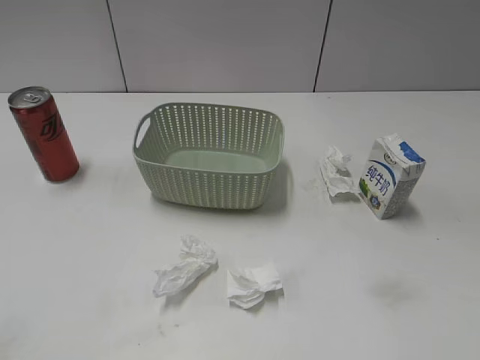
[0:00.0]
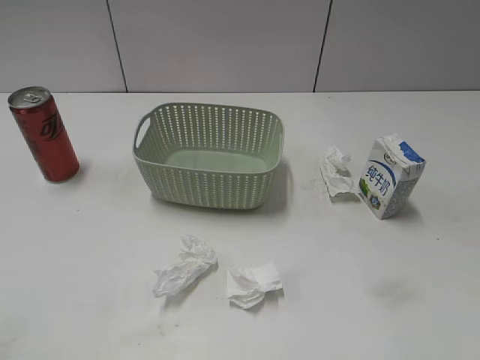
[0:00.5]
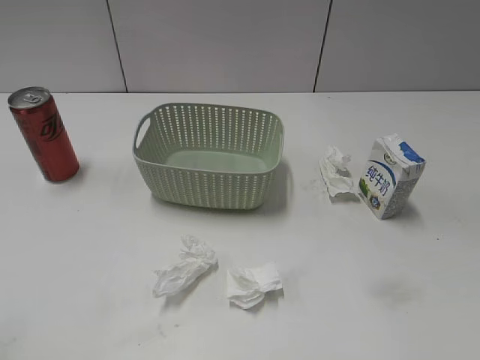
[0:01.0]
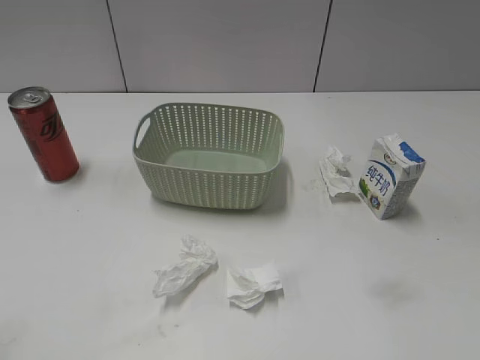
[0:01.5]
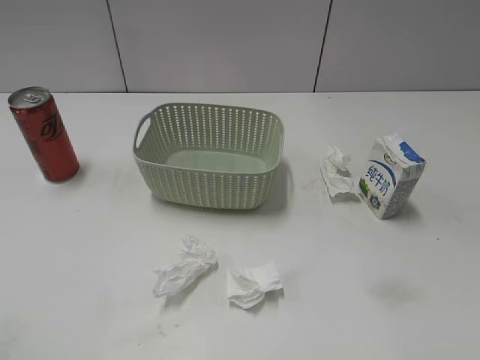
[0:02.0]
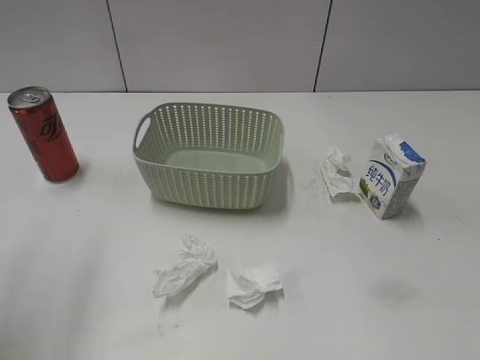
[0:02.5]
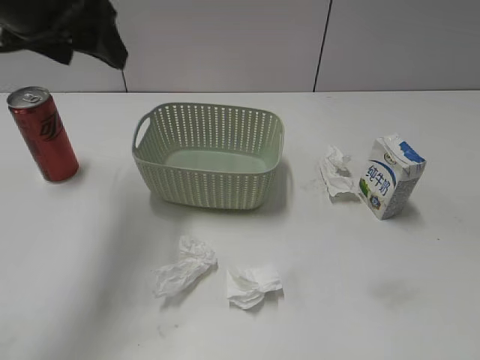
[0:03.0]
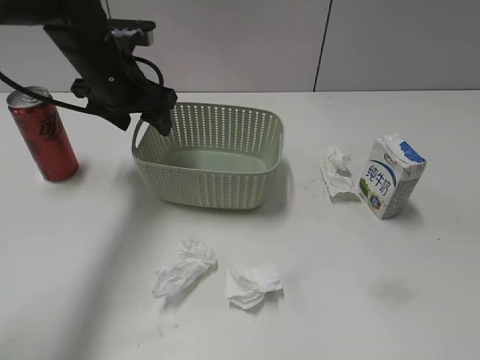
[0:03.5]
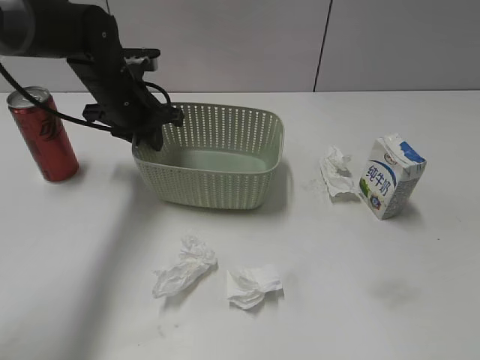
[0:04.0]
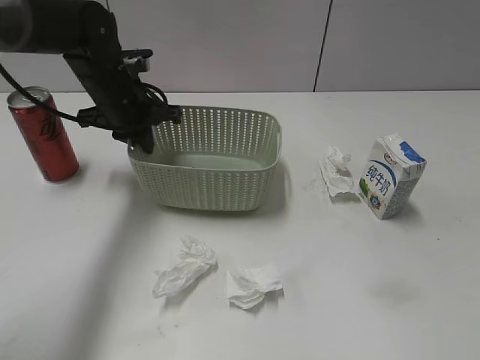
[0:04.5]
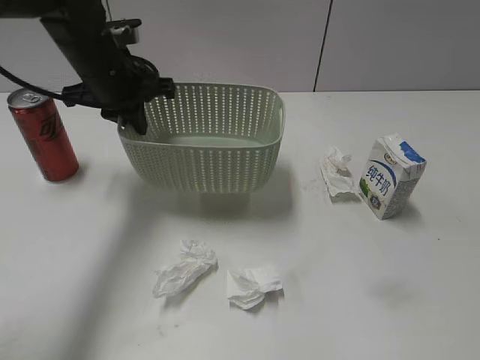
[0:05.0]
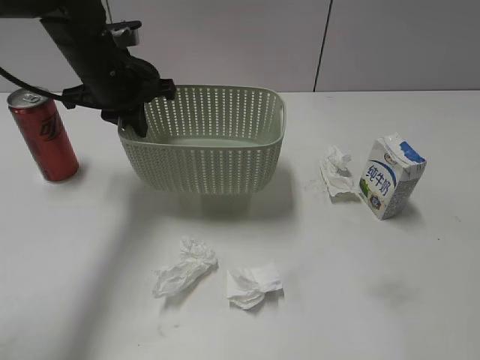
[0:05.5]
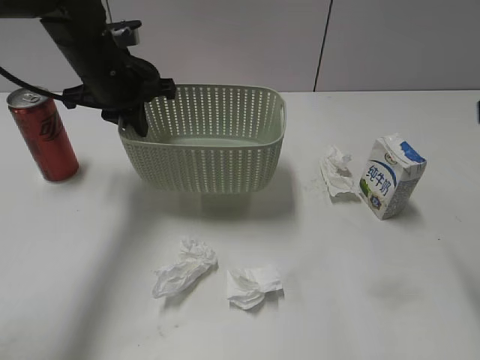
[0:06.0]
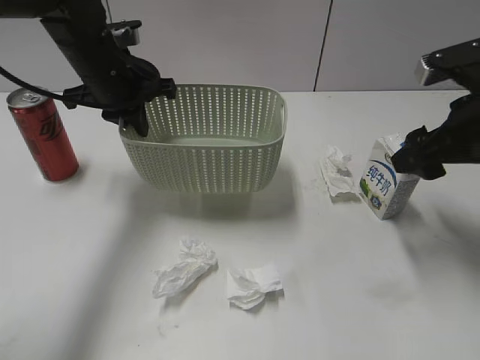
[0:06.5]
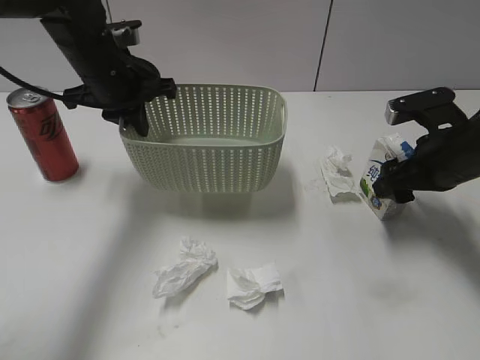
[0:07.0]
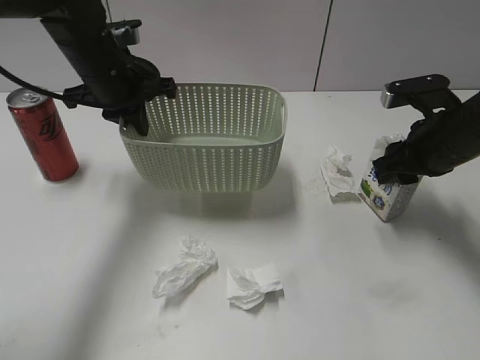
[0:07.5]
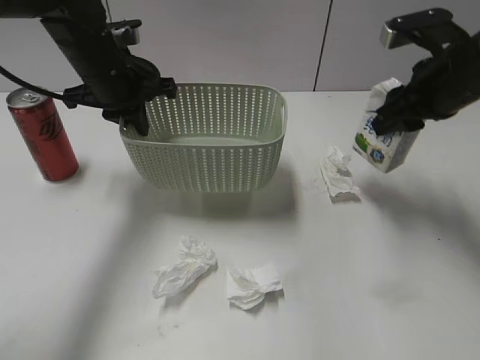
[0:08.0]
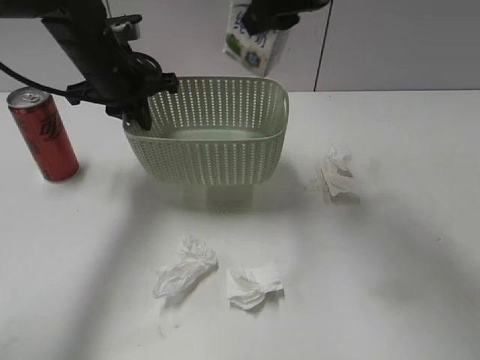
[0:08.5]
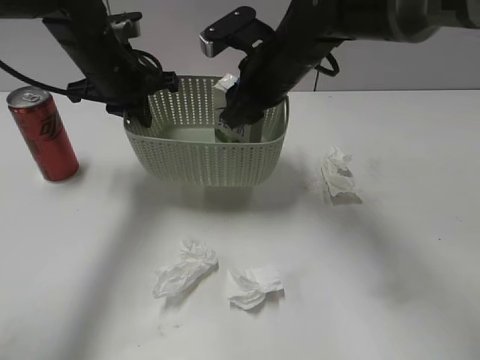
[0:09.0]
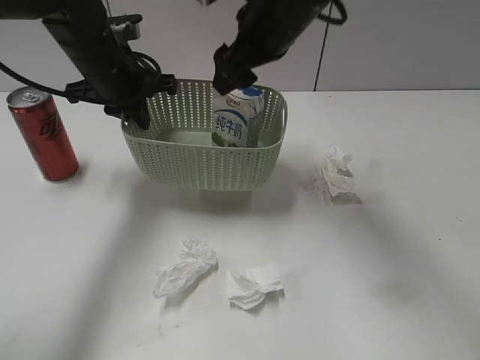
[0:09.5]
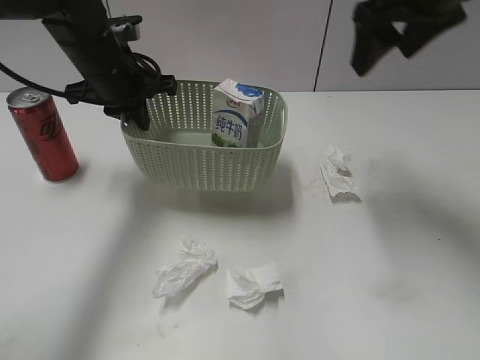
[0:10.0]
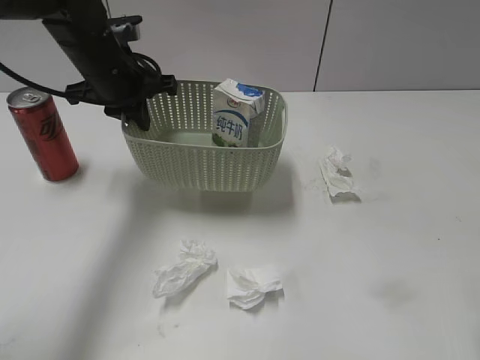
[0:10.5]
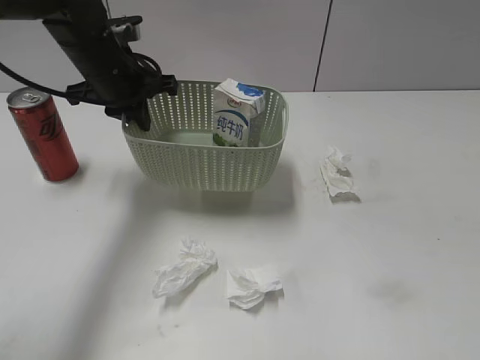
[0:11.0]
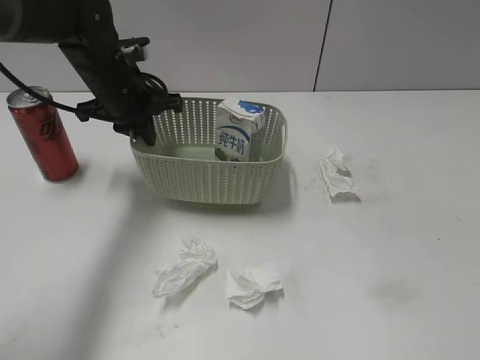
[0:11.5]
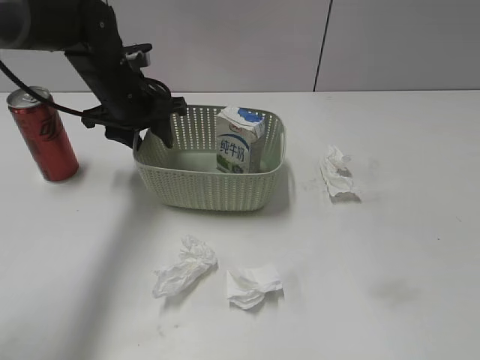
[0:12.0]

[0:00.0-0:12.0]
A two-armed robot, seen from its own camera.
Step, 0:03.0 to 0:04.0: Grasp the basket with left gripper.
Step, 0:04.5 to 0:05.0: Lift the basket with left gripper.
Step, 0:05.5 to 0:07.0: Grasp the milk with right gripper.
Step, 0:07.5 to 0:09.5: Place the milk in the basket with right gripper.
0:02.0 to 0:04.0: The left gripper is displaced forward and downward by some 40 cm, and closes up.
0:04.0 to 0:06.0: The right gripper travels forward by some 20 cm, while the left gripper shifts about 5 cm upward.
0:06.0 to 0:08.0: The right gripper shifts approximately 15 cm forward and downward, and closes.
0:08.0 to 0:10.0: The right gripper is displaced upward by approximately 10 cm, moves some 20 cm to the left and comes back, and opens.
0:10.0 to 0:12.0: The right gripper moves backward, roughly 35 cm. The left gripper opens its fingers.

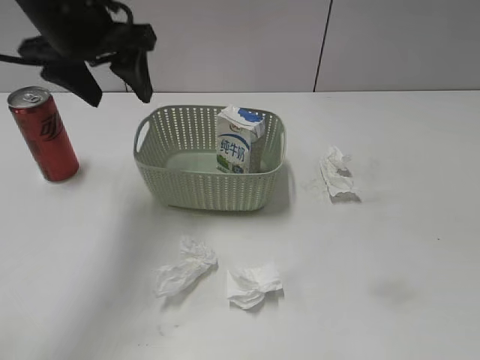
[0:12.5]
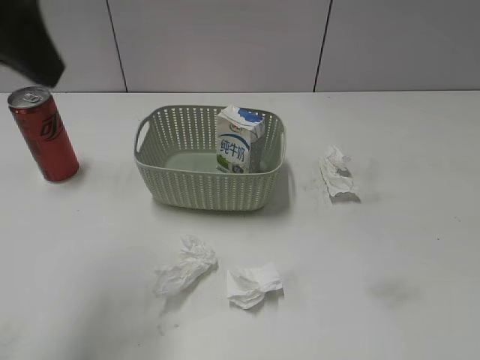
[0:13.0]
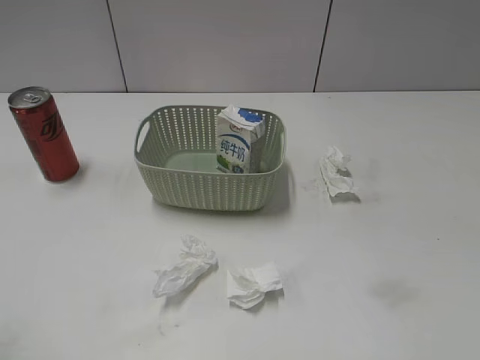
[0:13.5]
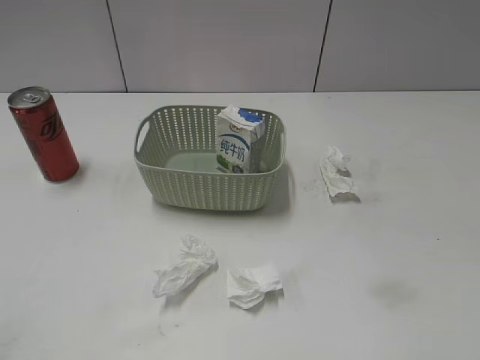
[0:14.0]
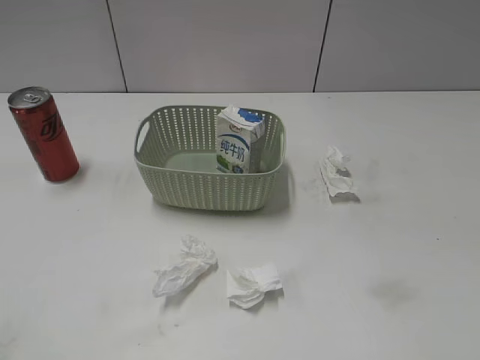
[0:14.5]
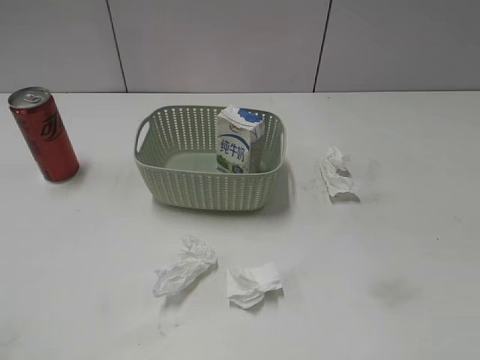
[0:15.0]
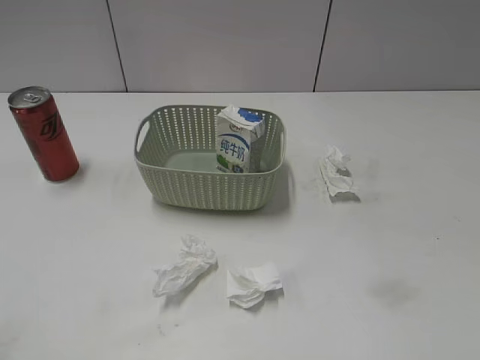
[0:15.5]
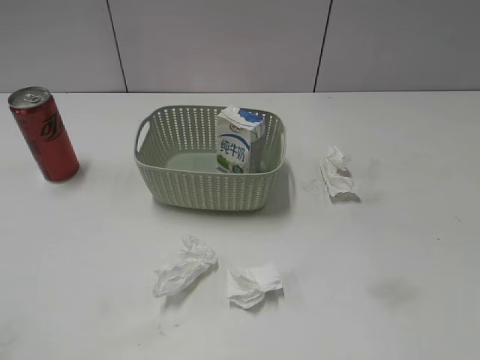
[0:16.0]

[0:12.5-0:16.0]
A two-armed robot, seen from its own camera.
0:12.5 to 0:14.5: The left gripper moves backward and to the left, about 35 cm.

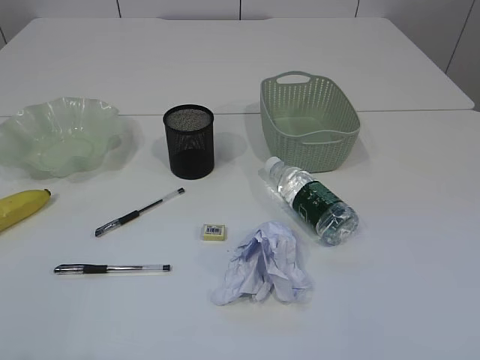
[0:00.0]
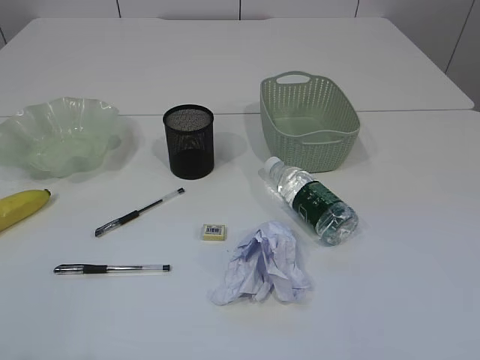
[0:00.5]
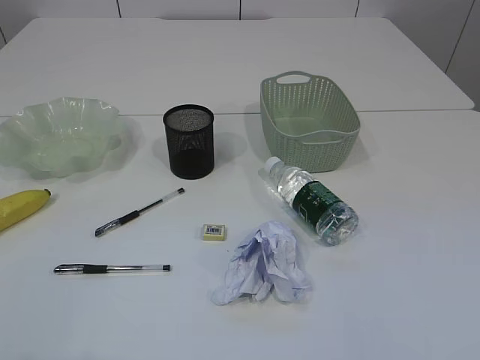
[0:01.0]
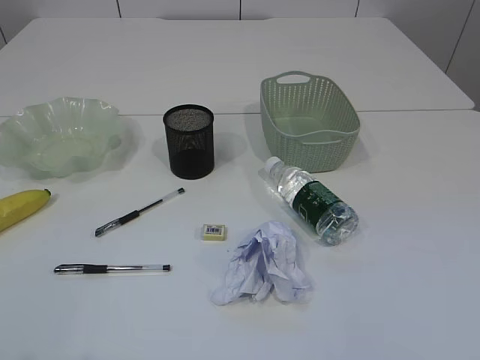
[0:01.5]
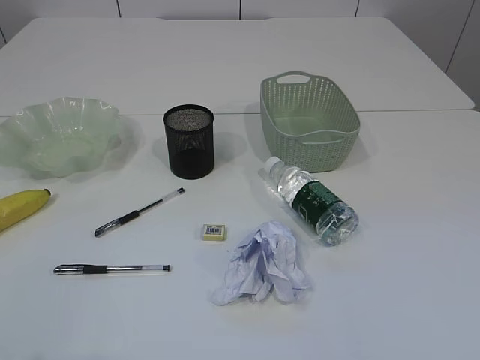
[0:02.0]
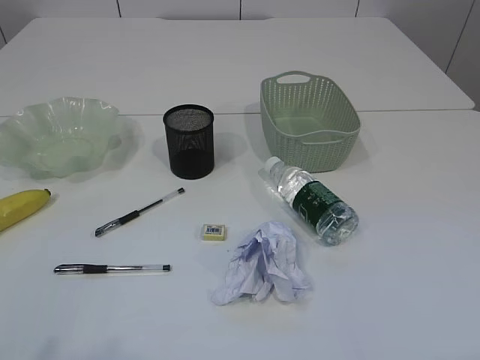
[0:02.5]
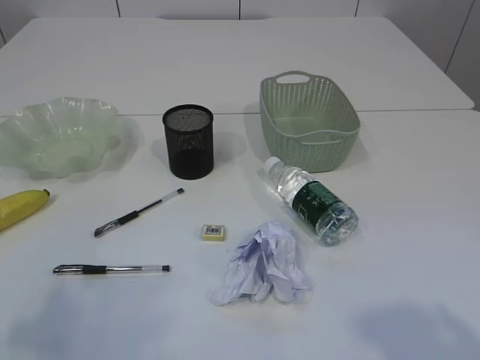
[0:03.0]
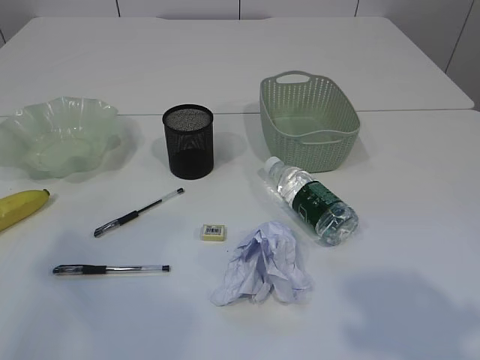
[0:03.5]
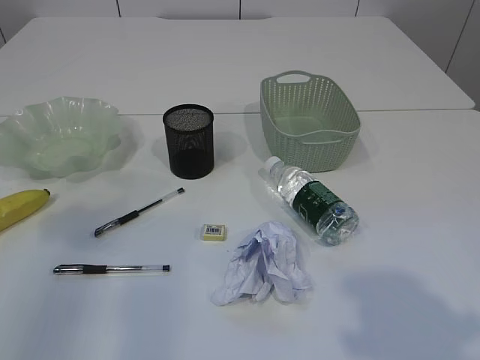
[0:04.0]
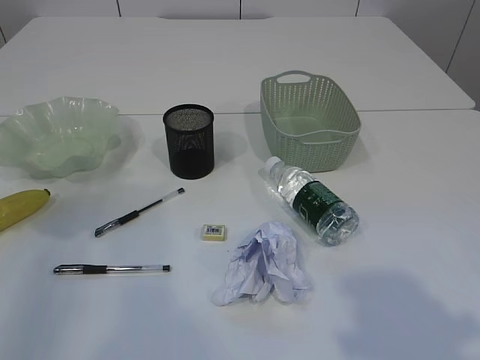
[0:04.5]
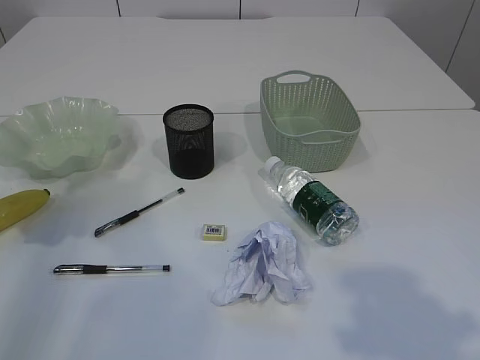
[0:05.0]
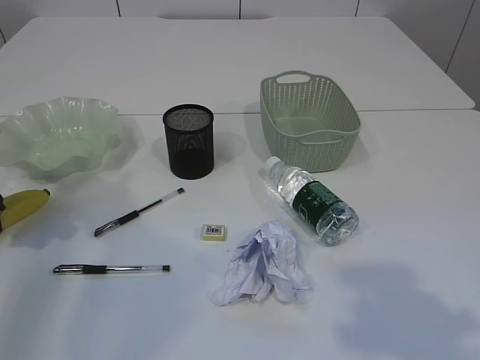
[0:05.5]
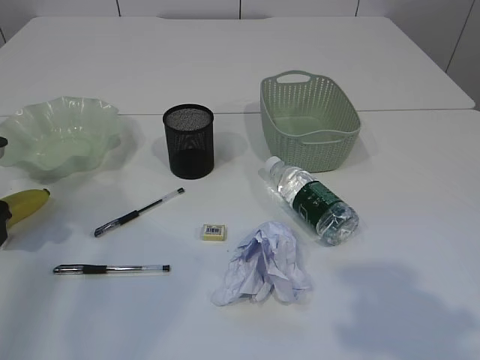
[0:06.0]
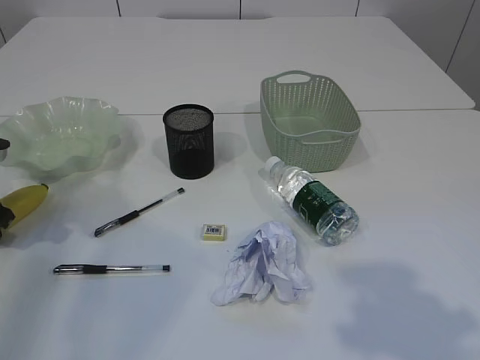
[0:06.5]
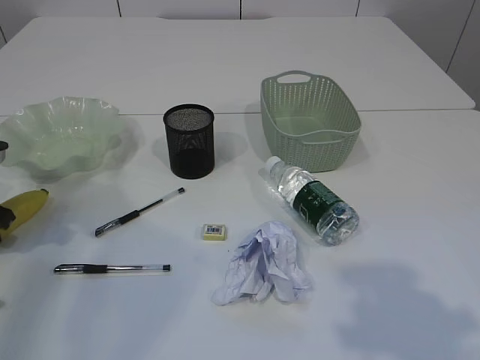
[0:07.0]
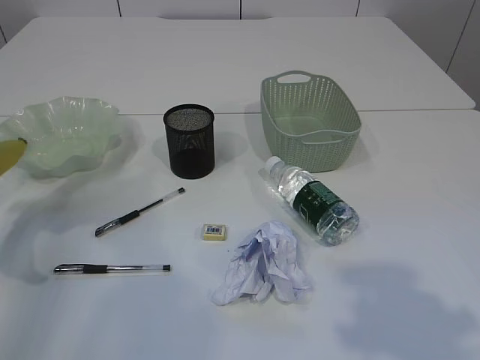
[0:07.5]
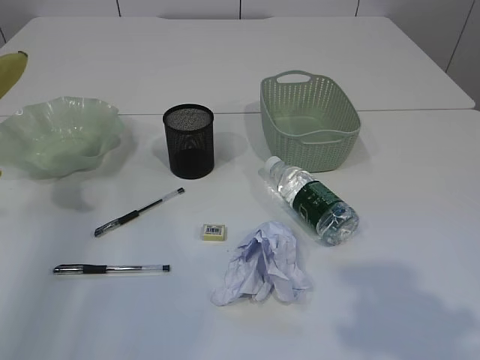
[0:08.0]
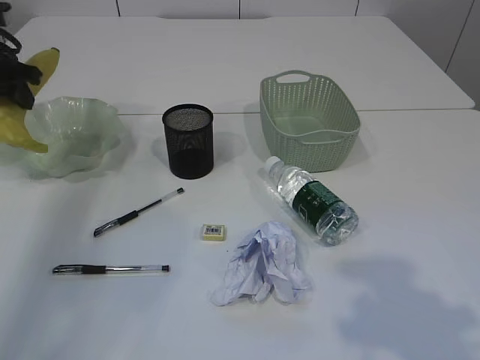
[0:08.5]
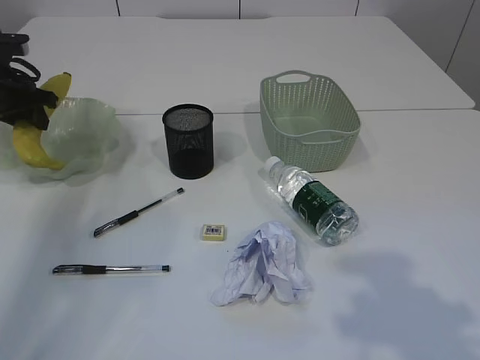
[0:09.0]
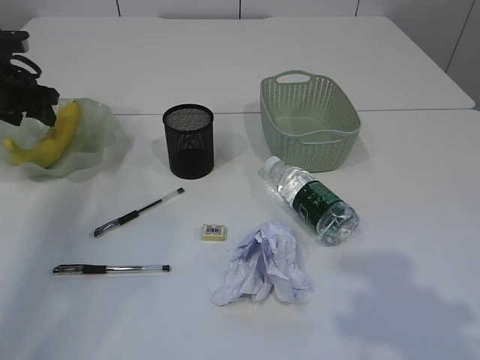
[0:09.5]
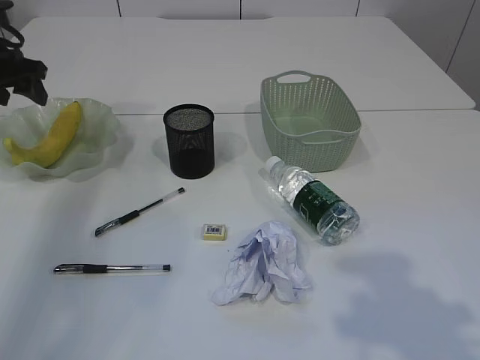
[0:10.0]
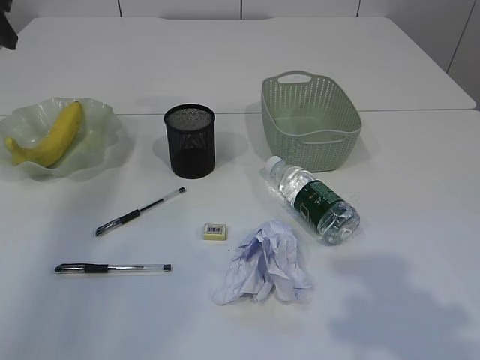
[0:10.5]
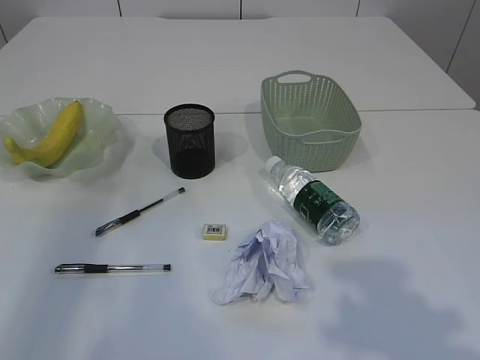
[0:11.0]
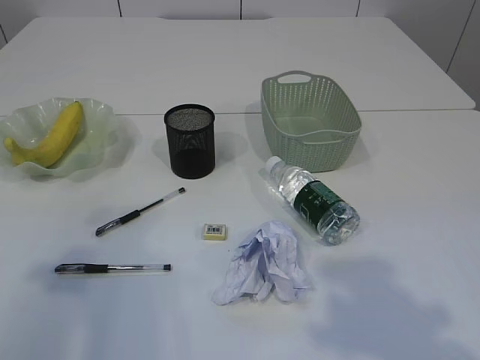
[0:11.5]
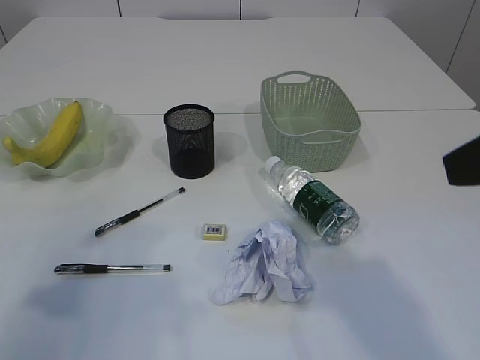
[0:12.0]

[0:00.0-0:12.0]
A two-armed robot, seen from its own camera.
Step, 0:08.0 to 0:10.0: Place the banana in the plate.
0:02.0 to 0:04.0: The left gripper heads forward, covering approximately 25 cm, while the right gripper heads forward, covering approximately 10 cm.
0:04.0 to 0:06.0: The left gripper shifts some 20 cm downward and forward.
0:06.0 to 0:08.0: The left gripper moves upward, about 15 cm, and closes.
0:08.0 to 0:10.0: The left gripper travels forward by about 10 cm, and opens.
0:10.0 to 0:12.0: The left gripper is displaced backward by roughly 35 cm. The right gripper moves upward, about 5 cm.
